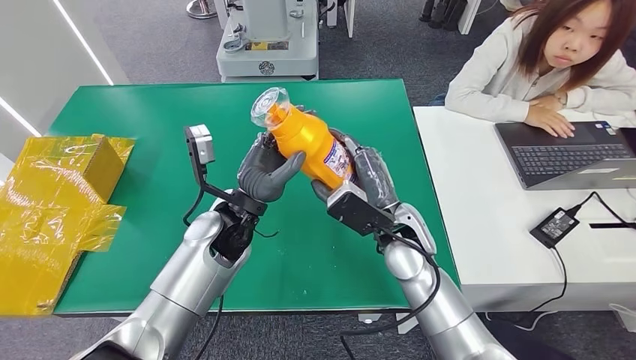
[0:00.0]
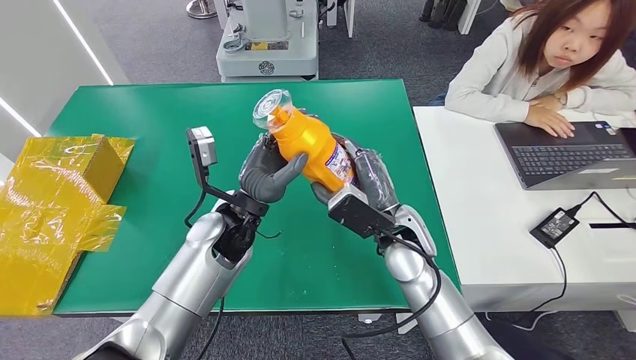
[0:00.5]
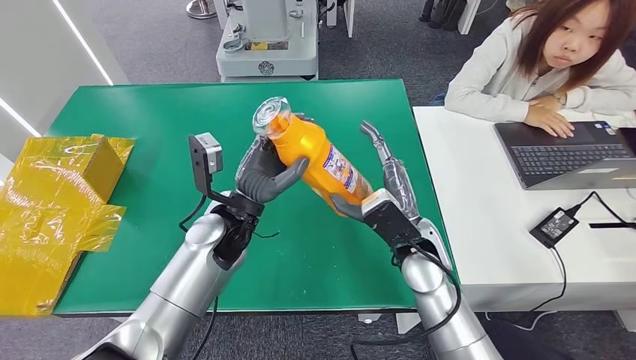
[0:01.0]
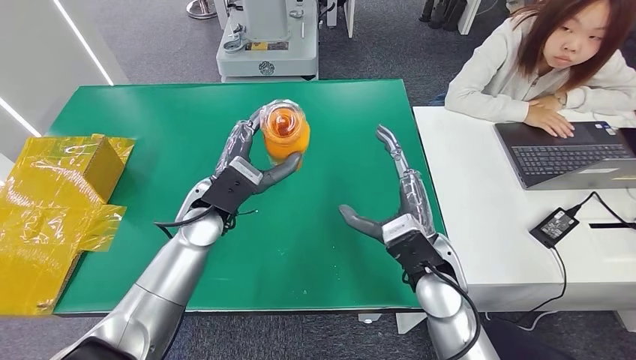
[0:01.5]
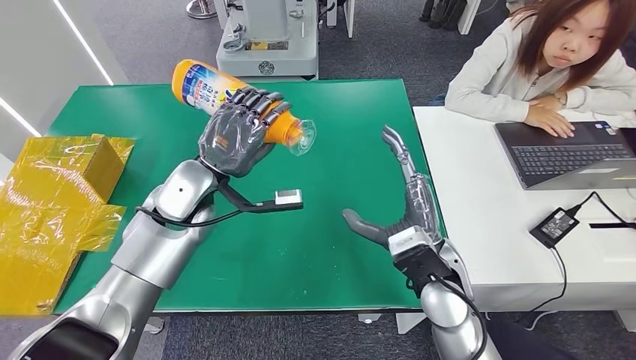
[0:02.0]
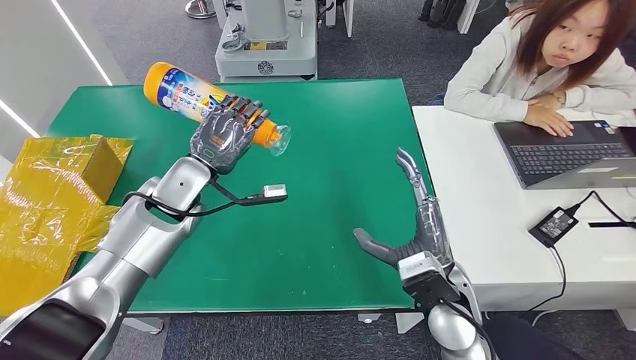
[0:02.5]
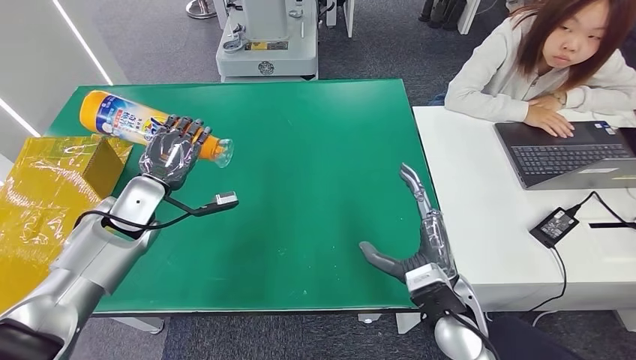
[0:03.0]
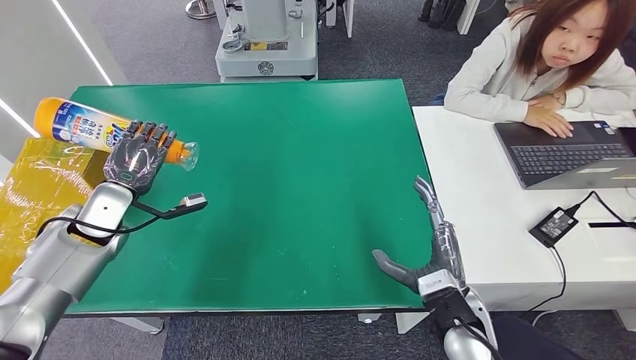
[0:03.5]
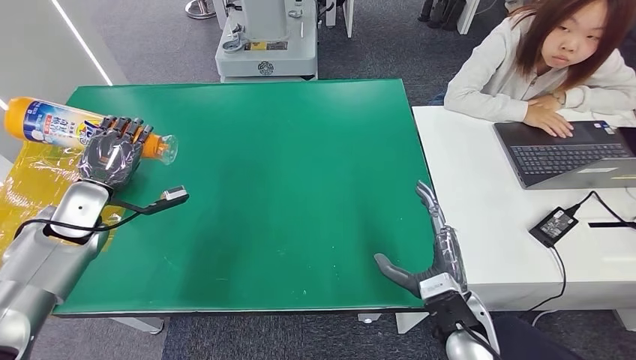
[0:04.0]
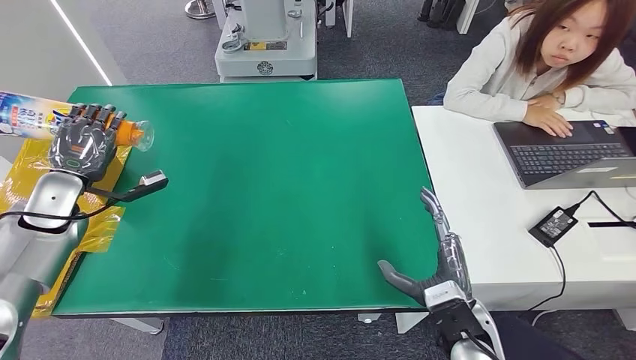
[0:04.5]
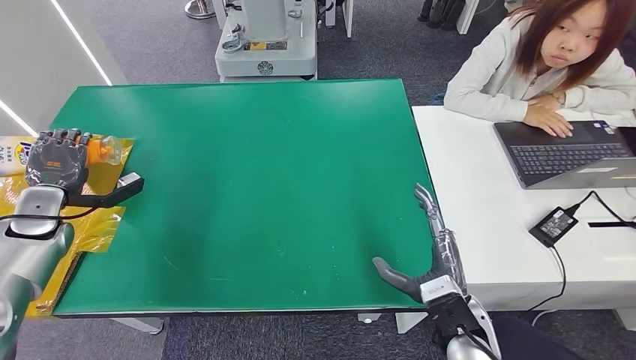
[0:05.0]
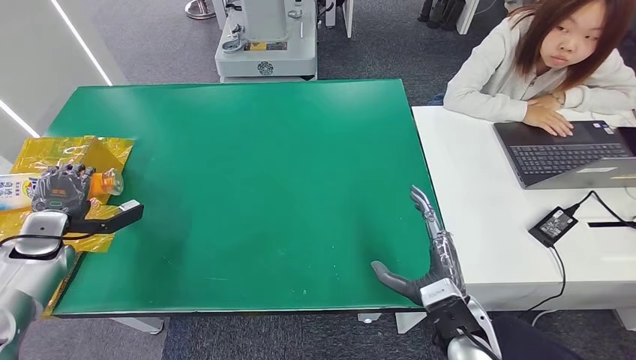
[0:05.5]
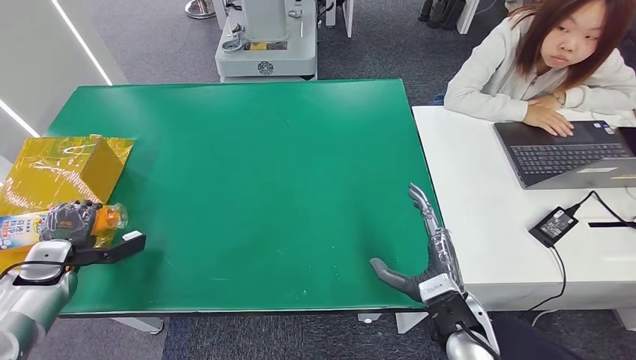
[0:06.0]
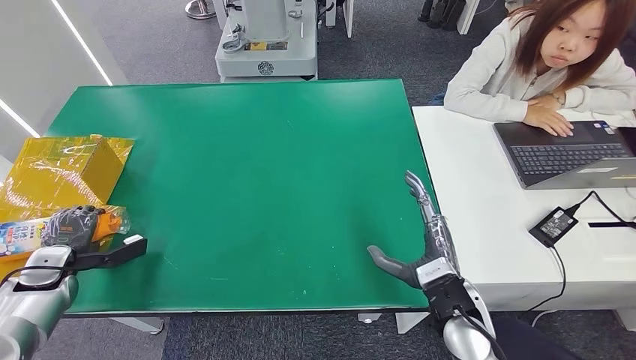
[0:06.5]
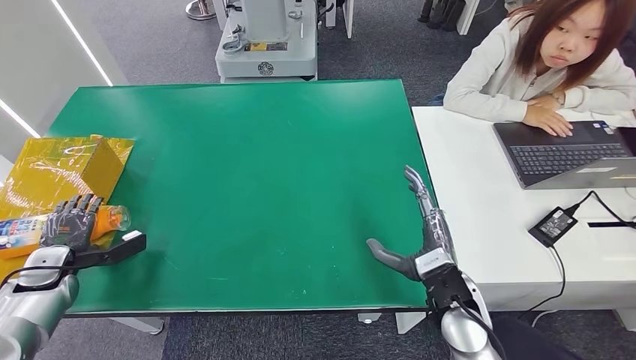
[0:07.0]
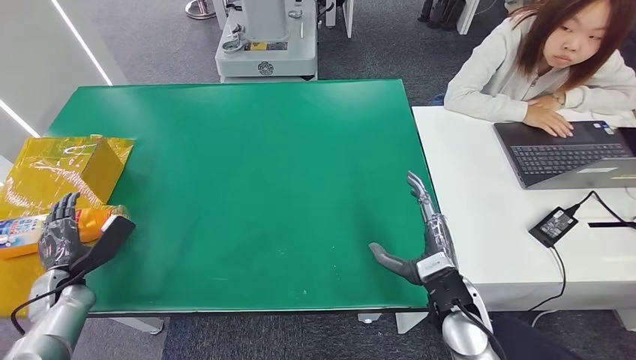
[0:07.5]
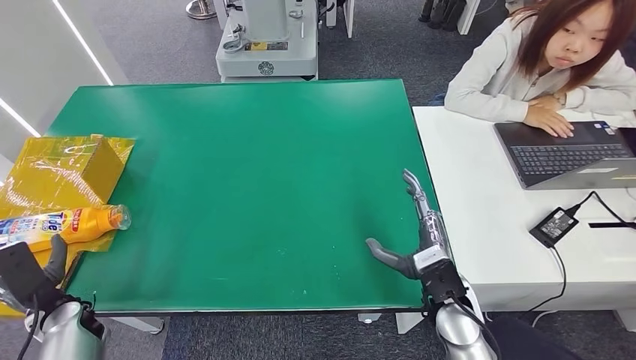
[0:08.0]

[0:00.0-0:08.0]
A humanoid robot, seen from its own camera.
Step, 0:00.0 to 0:08.0: Turn the bottle to the front side.
0:04.0 to 0:06.0: The left hand goes roughly 15 cm to the left, downward and backward.
0:06.0 to 0:08.0: The left hand heads to the right and backward, covering roughly 10 cm.
